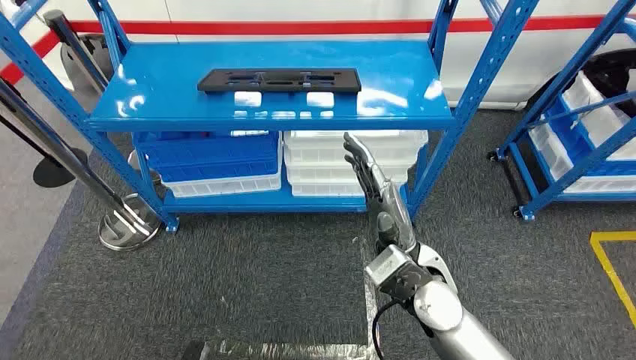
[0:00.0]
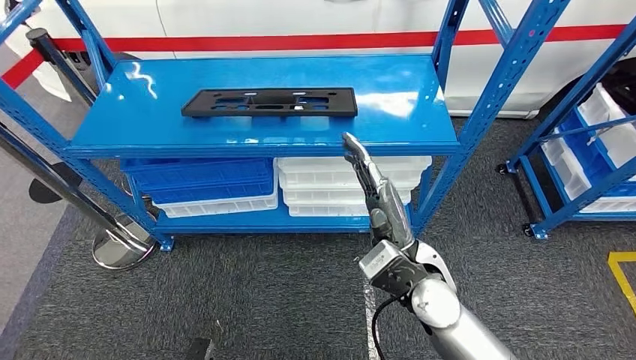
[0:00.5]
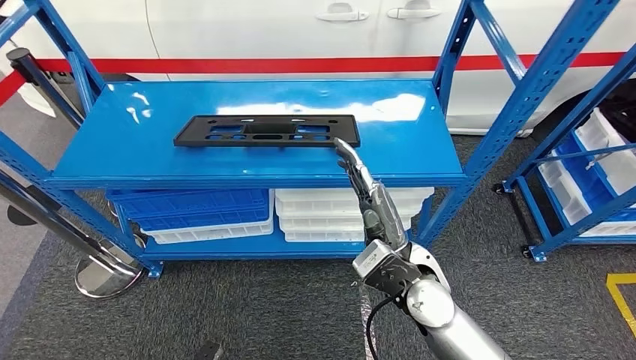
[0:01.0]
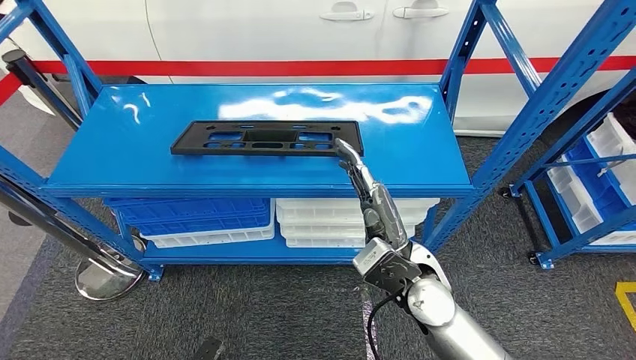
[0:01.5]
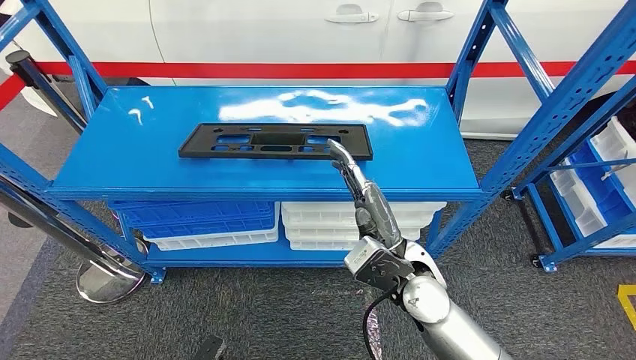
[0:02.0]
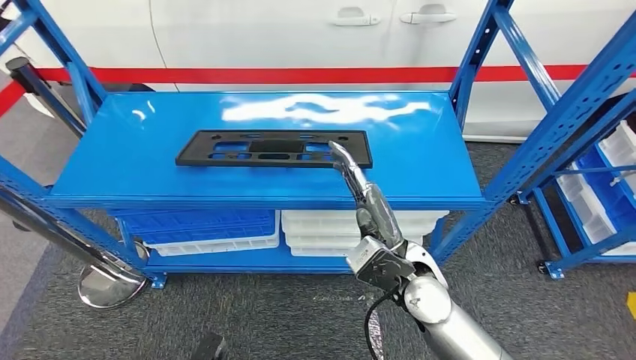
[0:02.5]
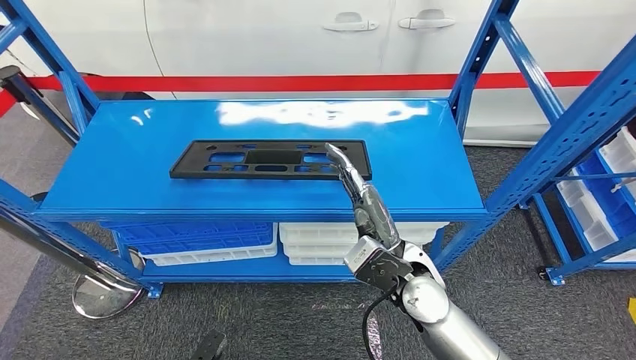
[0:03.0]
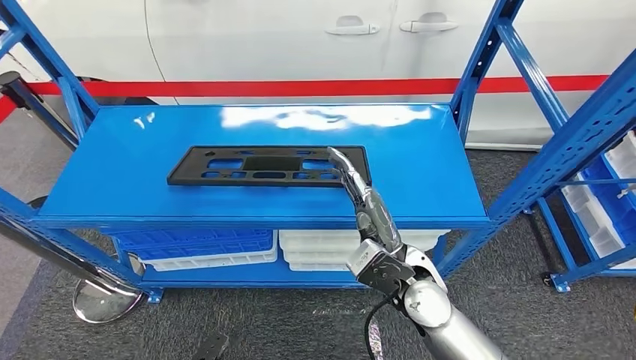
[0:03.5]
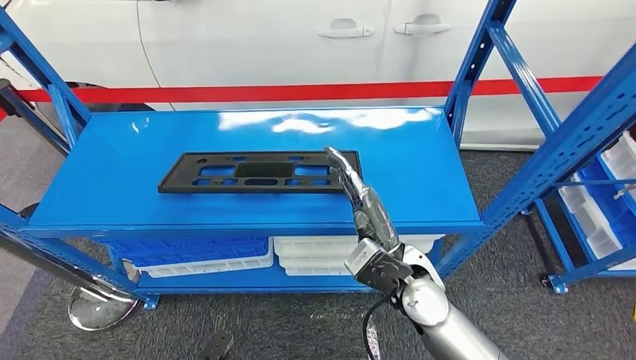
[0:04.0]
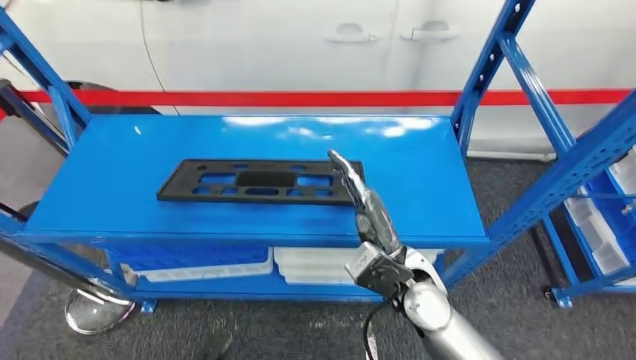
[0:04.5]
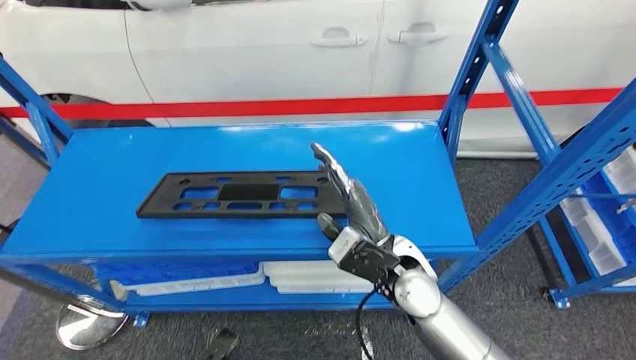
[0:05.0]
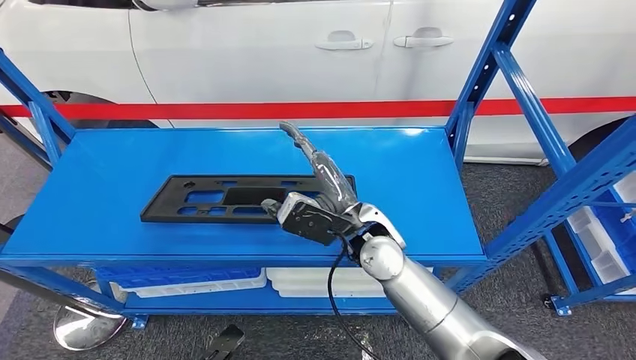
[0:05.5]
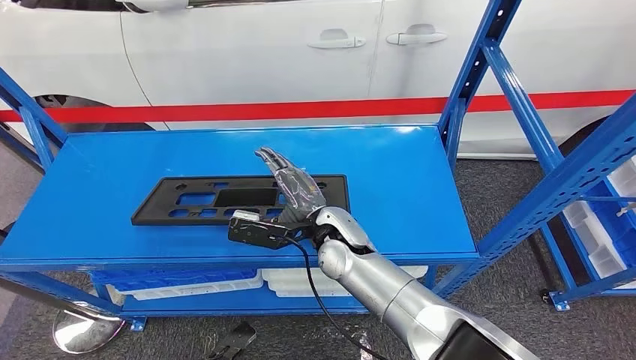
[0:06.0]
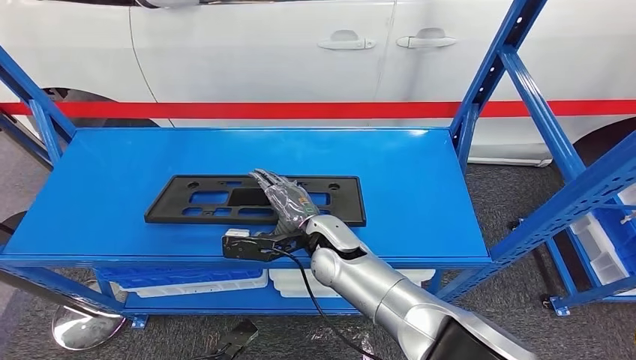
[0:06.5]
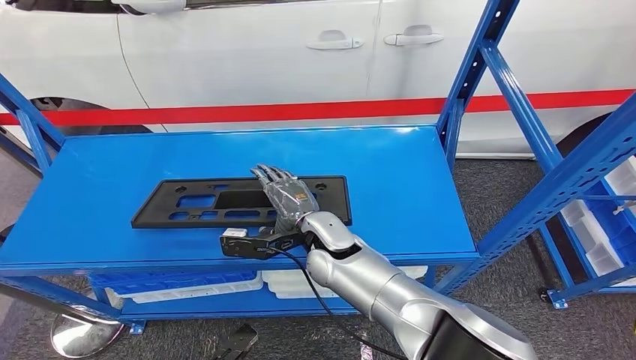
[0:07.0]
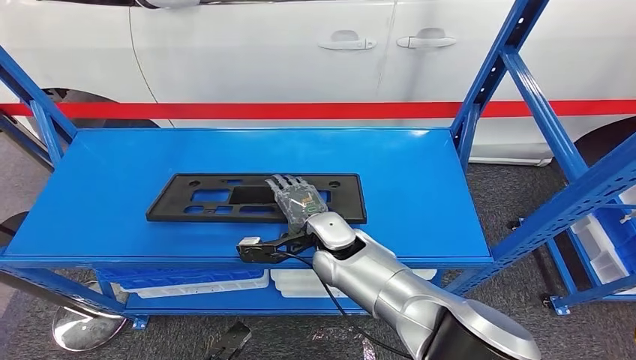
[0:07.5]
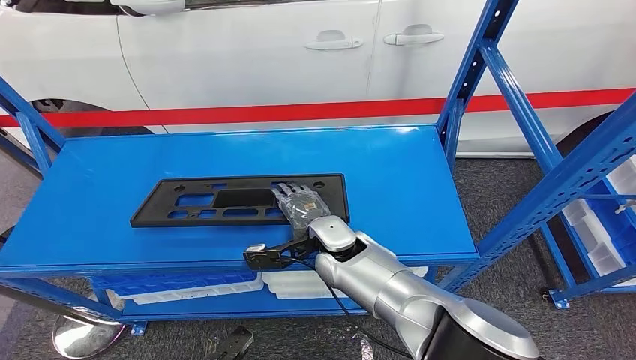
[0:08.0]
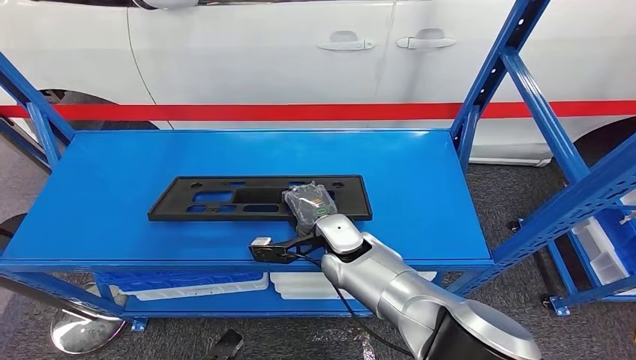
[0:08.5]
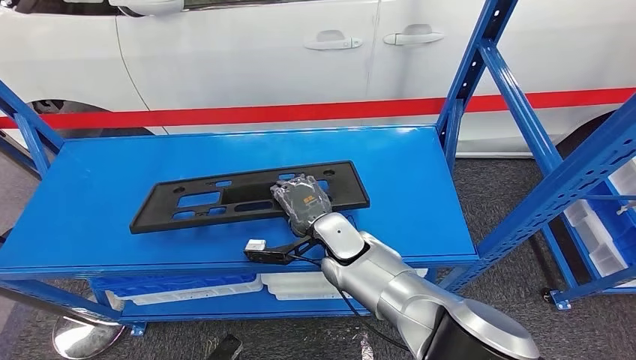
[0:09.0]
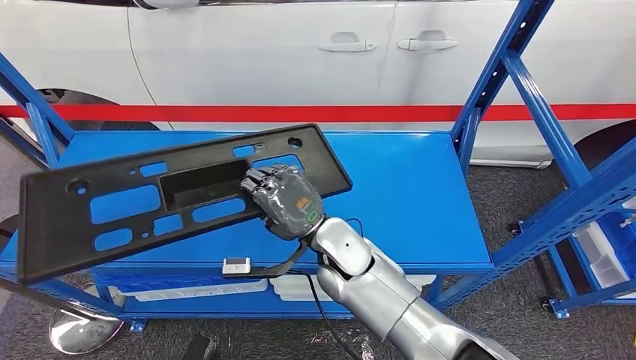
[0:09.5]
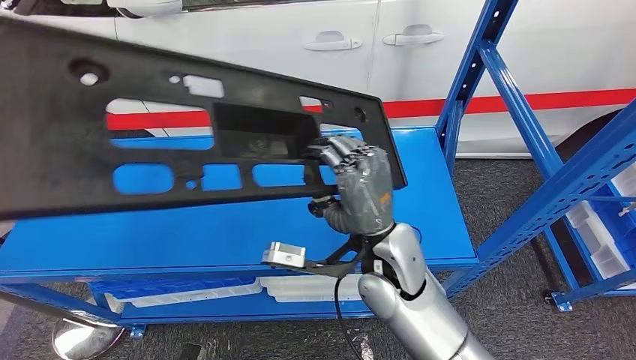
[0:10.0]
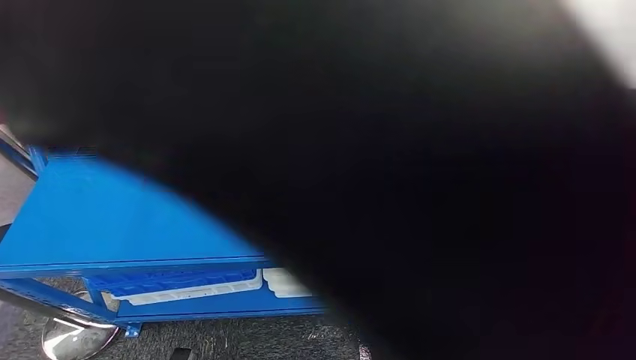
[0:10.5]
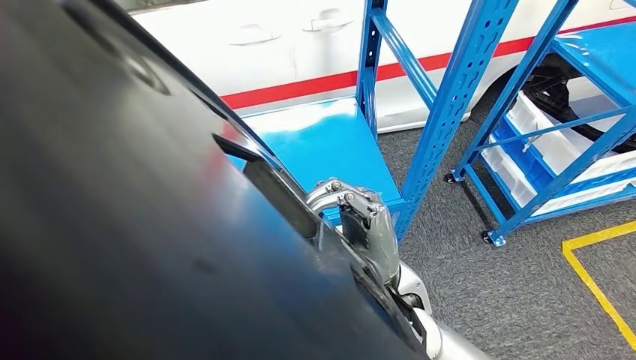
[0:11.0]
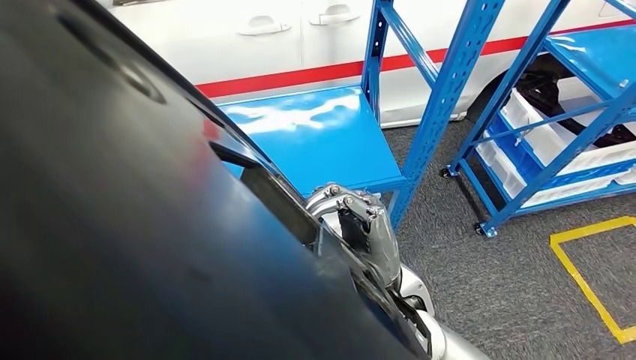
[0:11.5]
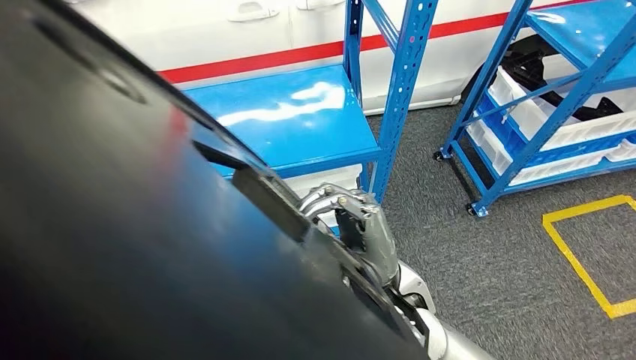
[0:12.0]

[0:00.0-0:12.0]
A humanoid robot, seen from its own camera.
Step, 0:00.0 to 0:10.5: Pick up the large material from the shelf.

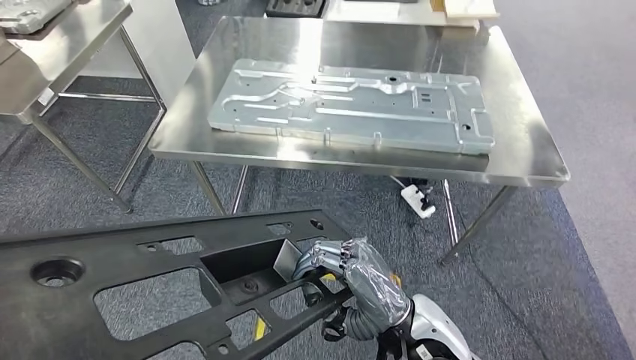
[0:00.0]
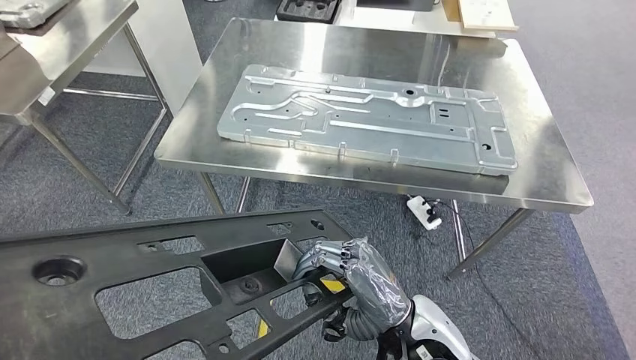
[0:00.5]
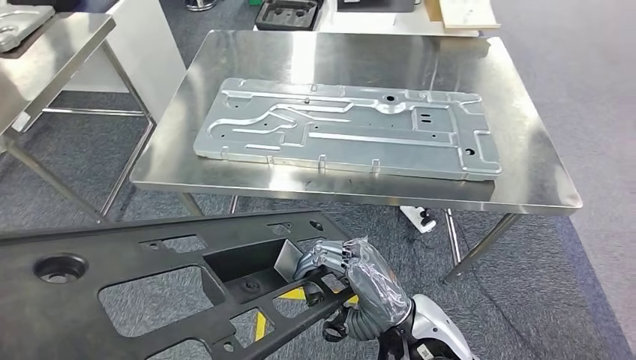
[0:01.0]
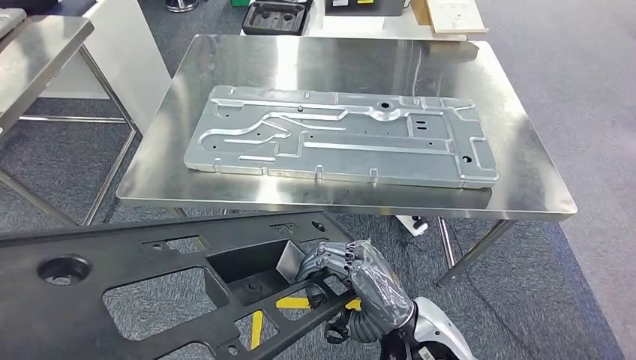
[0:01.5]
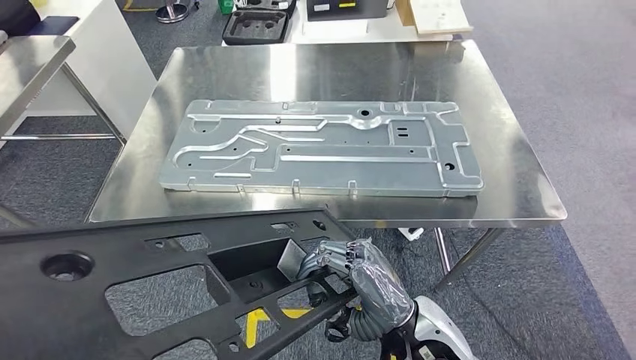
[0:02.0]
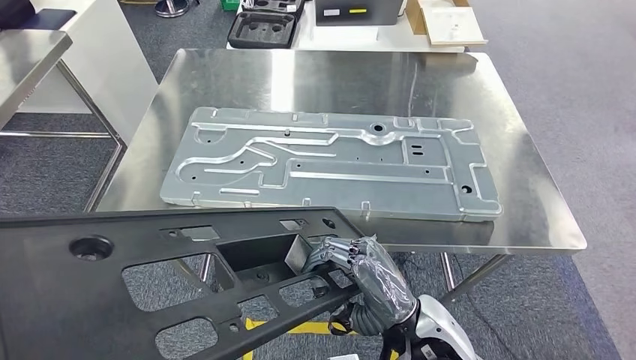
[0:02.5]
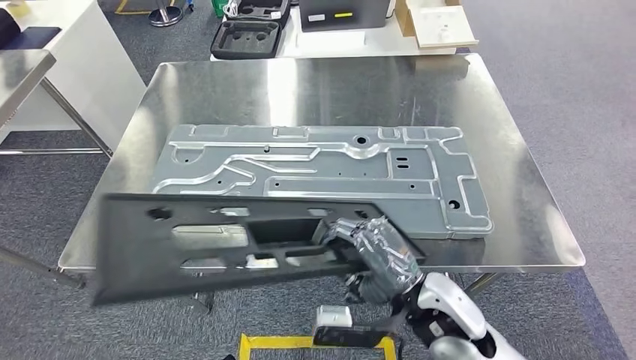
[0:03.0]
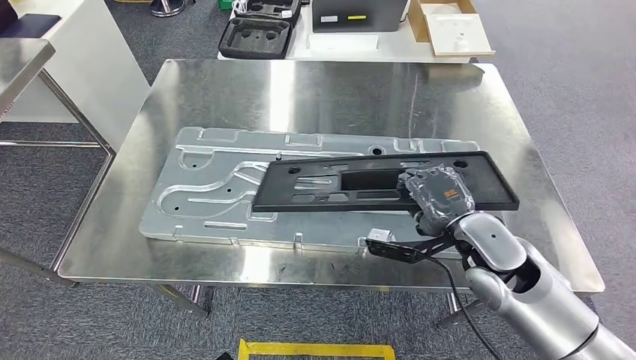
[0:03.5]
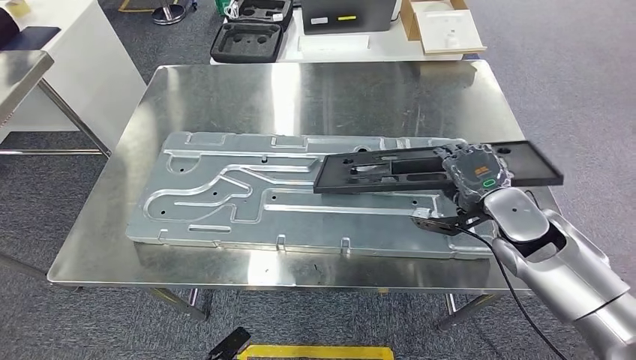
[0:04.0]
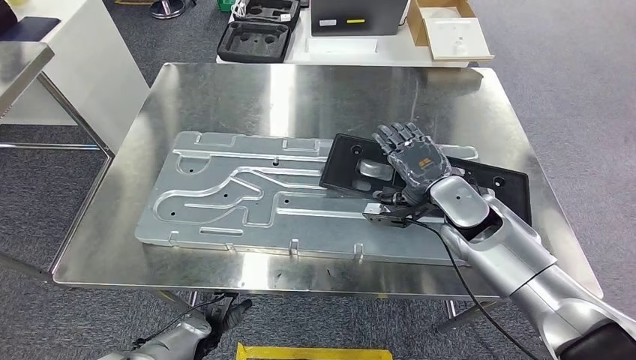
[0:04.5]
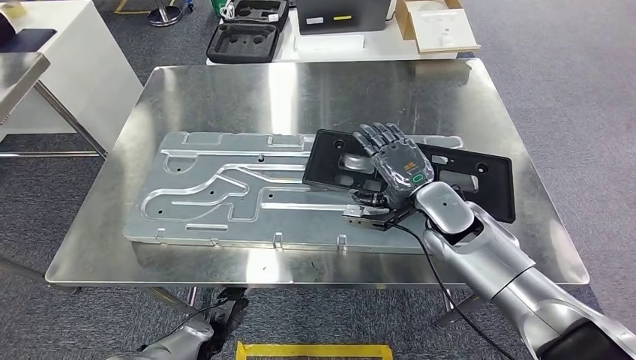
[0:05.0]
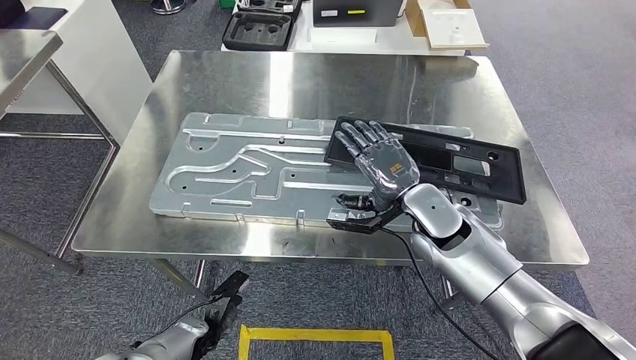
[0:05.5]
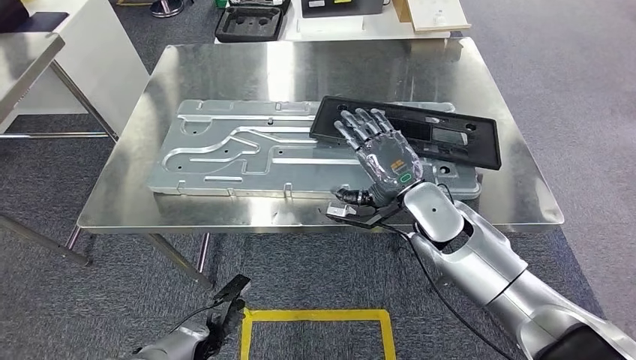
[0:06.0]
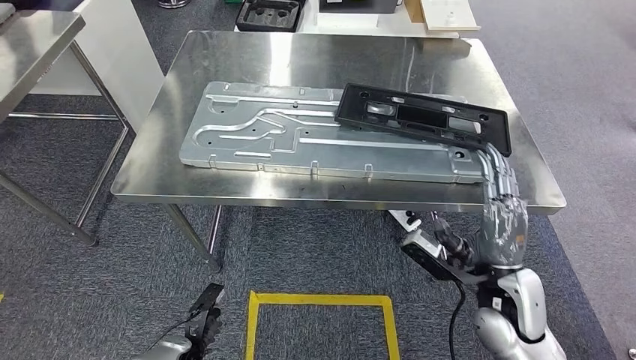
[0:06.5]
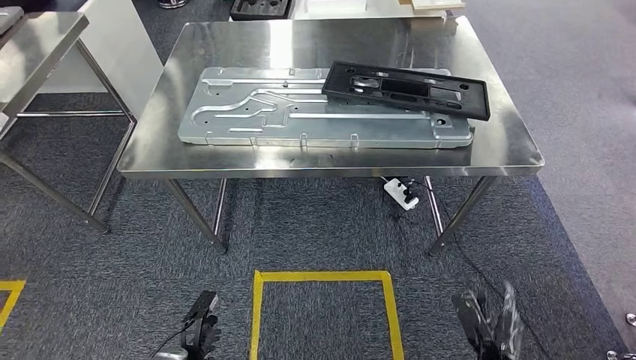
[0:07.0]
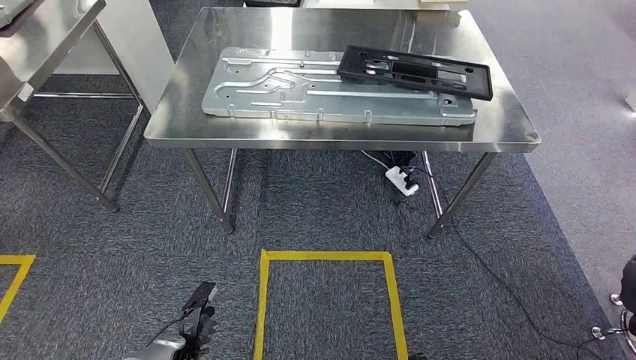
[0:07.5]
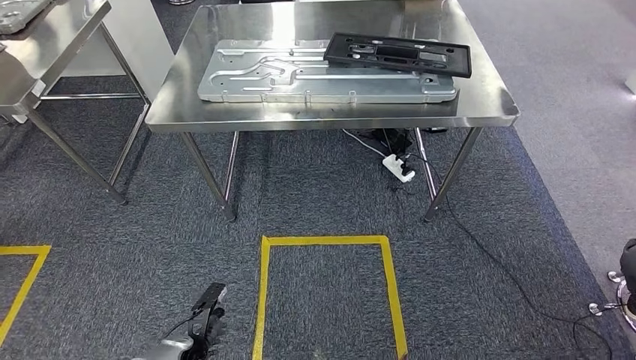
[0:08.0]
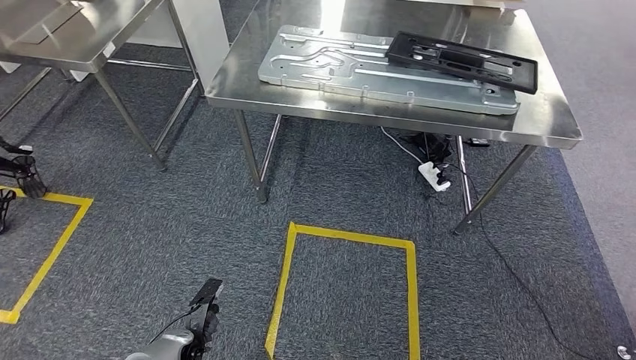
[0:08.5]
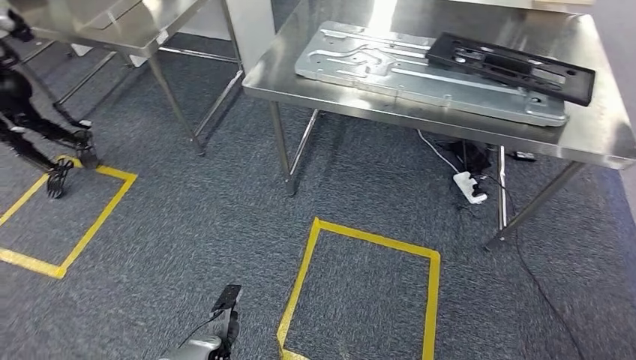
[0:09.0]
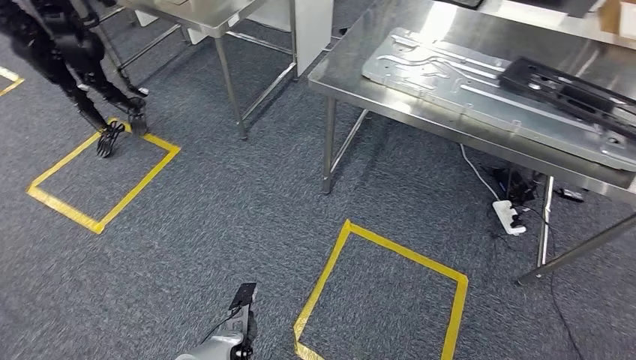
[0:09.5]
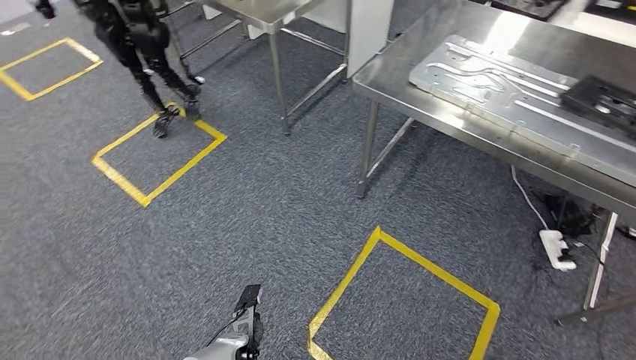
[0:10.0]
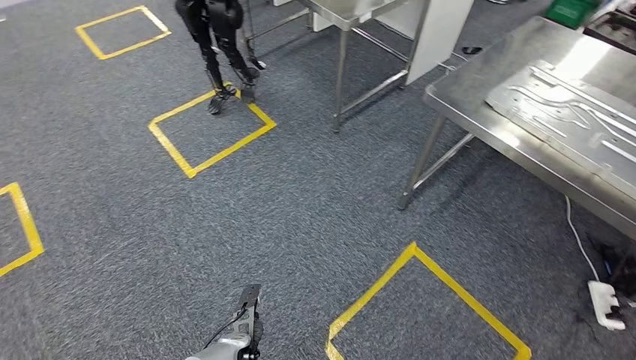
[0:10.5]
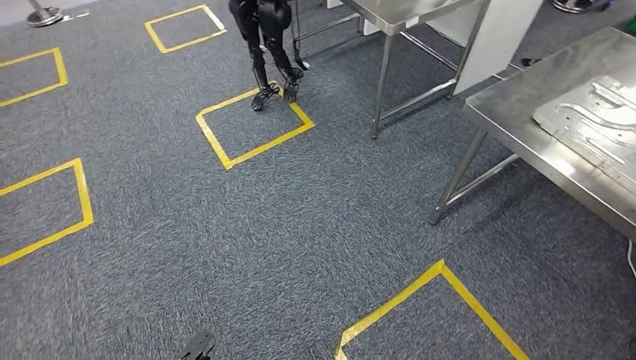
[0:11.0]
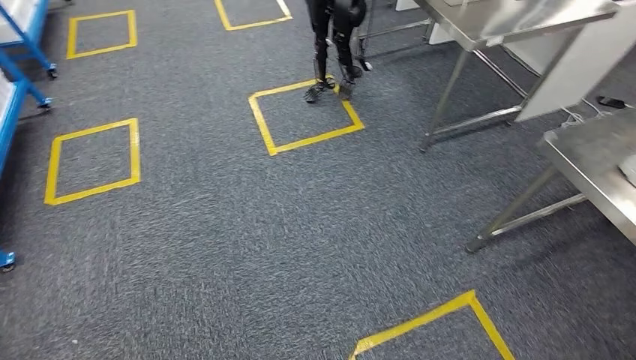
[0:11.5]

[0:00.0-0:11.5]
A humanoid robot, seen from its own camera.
Step, 0:00.0 to 0:08.5: Insert the large material into the corresponding slot on the workbench.
